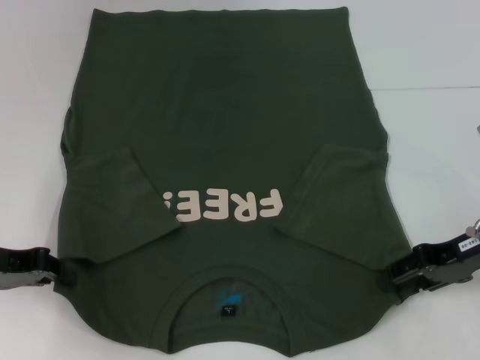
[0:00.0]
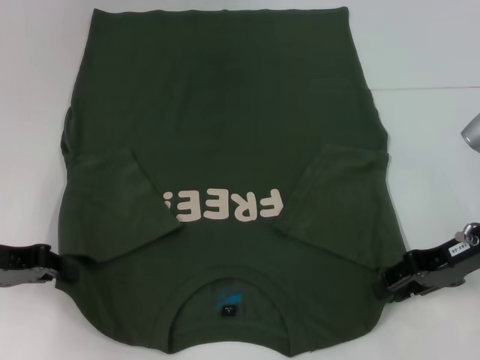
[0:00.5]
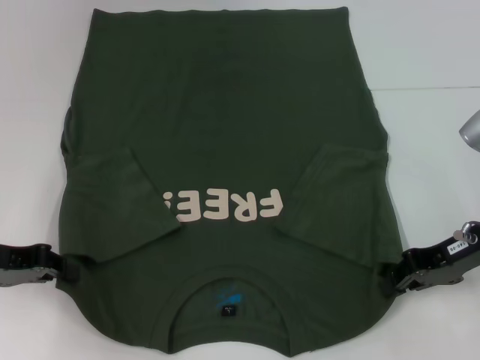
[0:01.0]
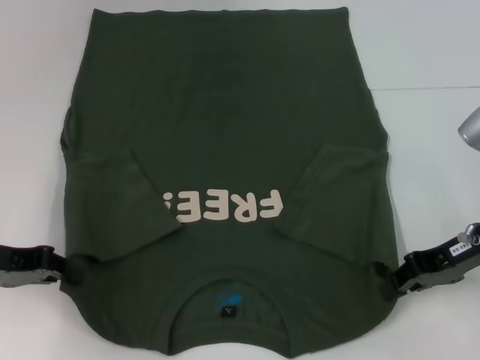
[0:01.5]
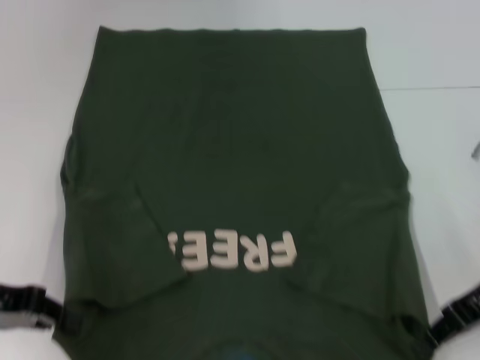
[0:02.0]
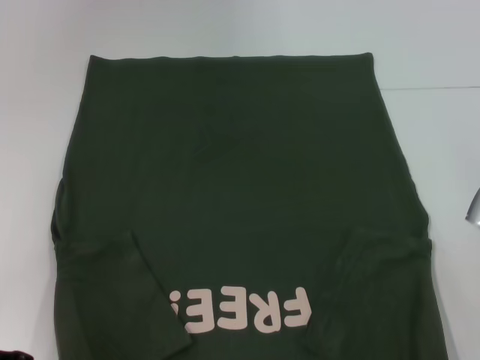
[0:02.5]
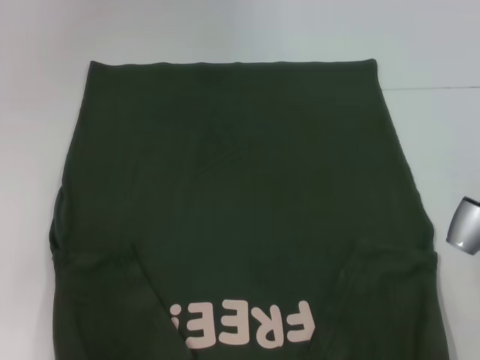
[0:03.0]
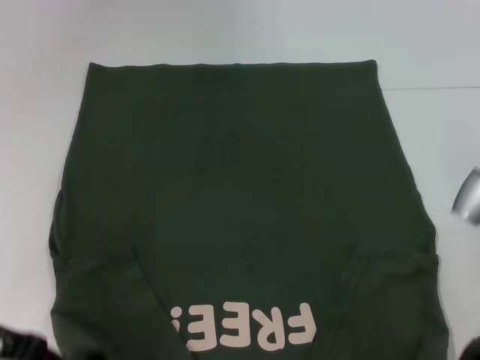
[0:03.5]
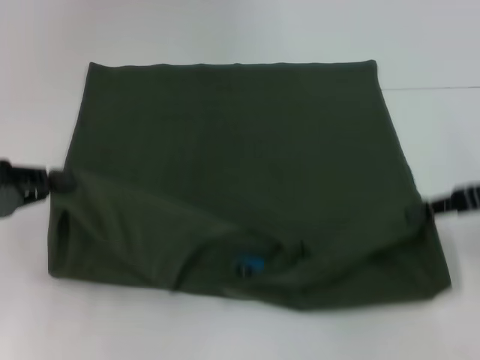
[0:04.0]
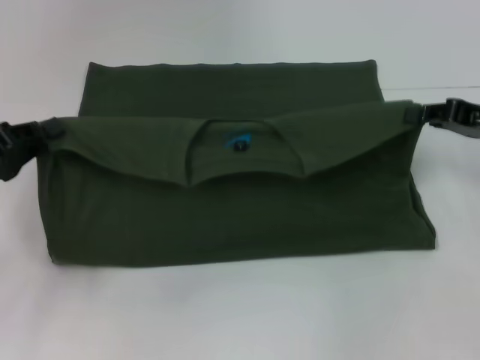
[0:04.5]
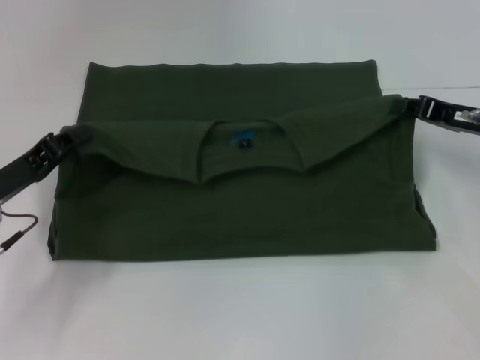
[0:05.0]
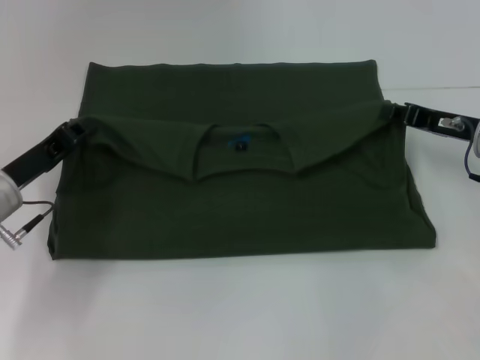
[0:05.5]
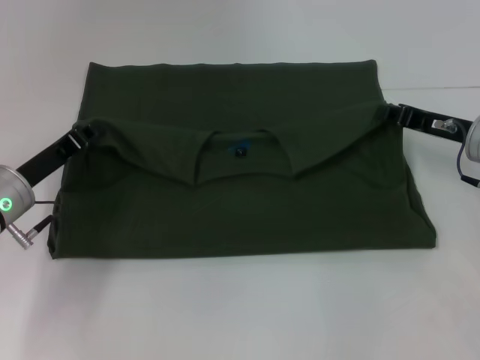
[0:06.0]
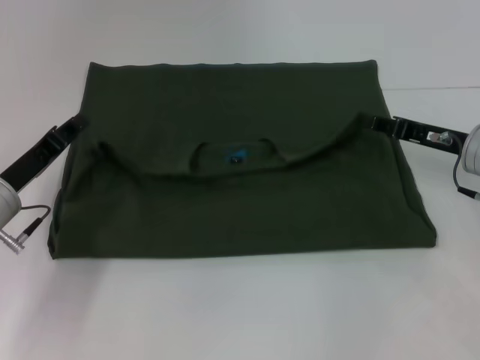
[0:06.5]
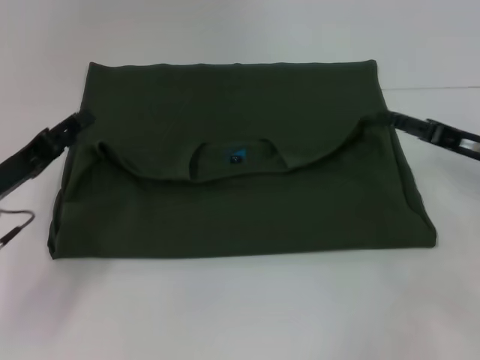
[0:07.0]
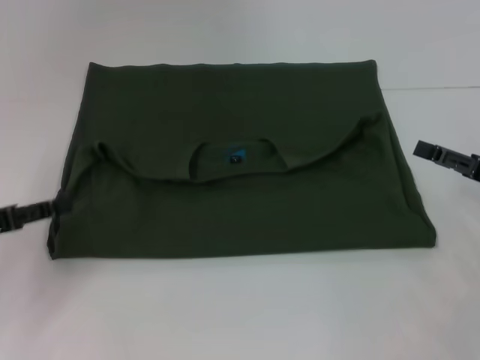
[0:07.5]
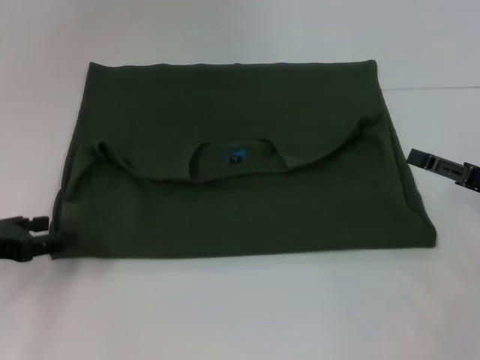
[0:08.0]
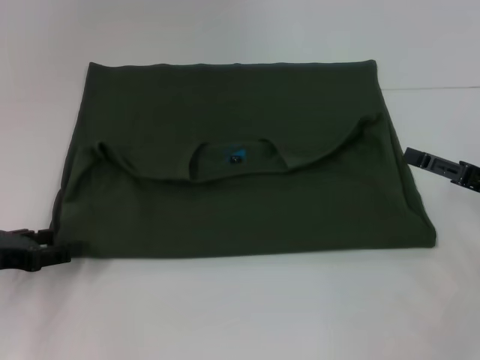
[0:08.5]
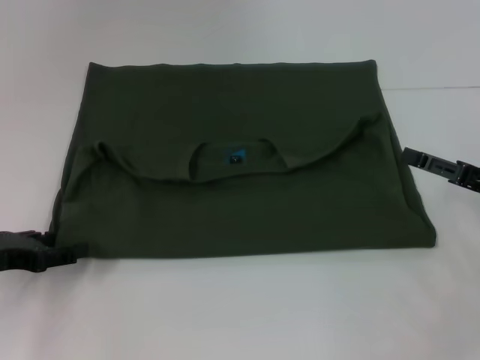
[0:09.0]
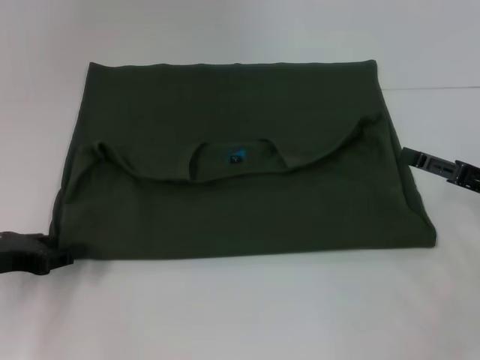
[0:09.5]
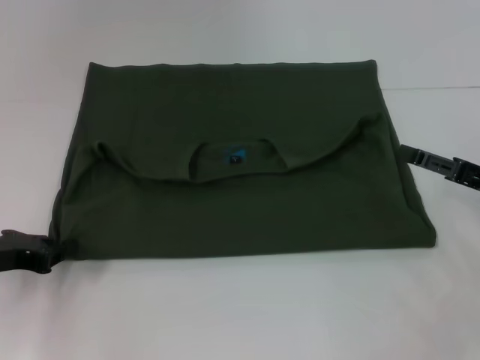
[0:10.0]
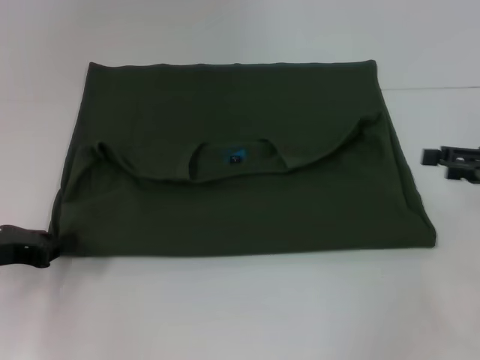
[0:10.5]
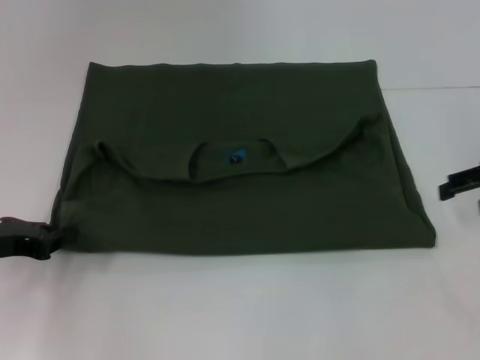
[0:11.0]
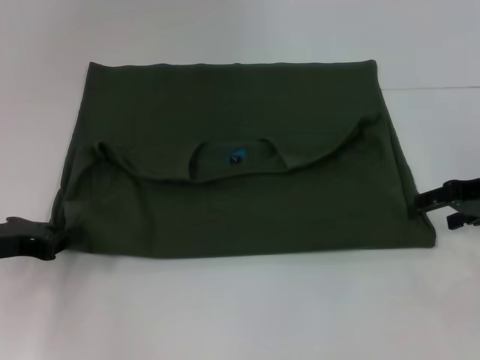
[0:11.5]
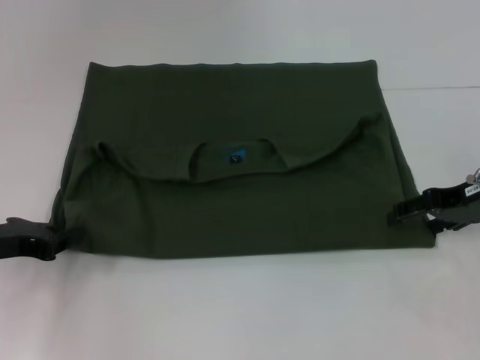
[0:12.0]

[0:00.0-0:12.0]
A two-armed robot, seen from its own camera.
Step, 0:00.5 to 0:06.5: Fold the clothes with your left hand.
Step, 0:00.5 to 0:06.5: Fold the clothes with your right hand.
0:00.0 to 0:02.0: The right gripper closes up.
0:02.0 to 0:04.0: The right gripper moves about 5 cm.
0:04.0 to 0:06.0: The right gripper shifts roughly 10 cm downward and forward. The left gripper travels downward, to the right and forward by roughly 15 cm.
0:06.0 to 0:08.0: The left gripper moves to the left and backward, roughly 10 cm, and opens up; the right gripper travels backward and to the right by about 10 cm, and opens its fingers.
0:08.0 to 0:10.0: The left gripper closes.
0:10.0 to 0:12.0: The right gripper heads forward, covering roughly 5 cm.

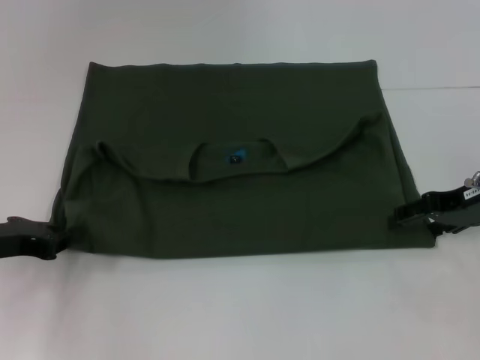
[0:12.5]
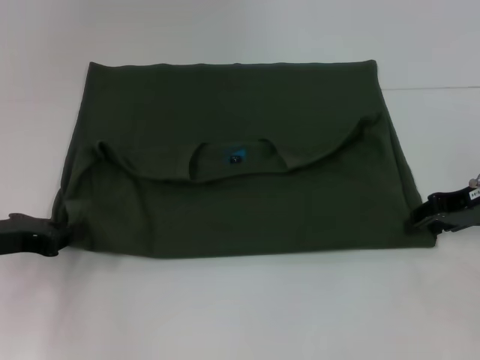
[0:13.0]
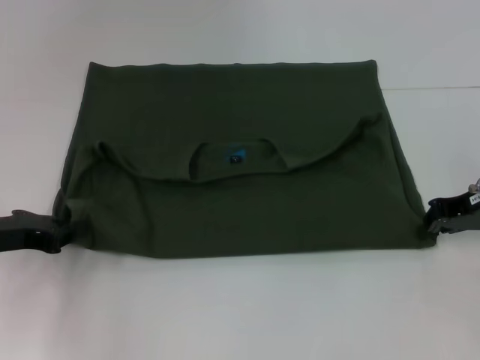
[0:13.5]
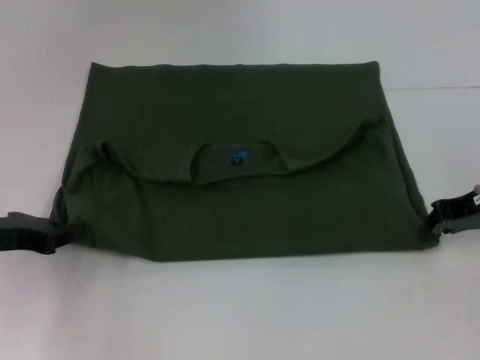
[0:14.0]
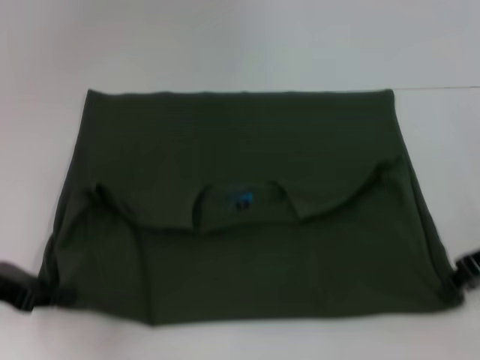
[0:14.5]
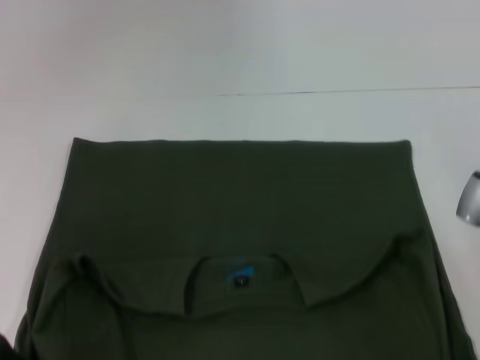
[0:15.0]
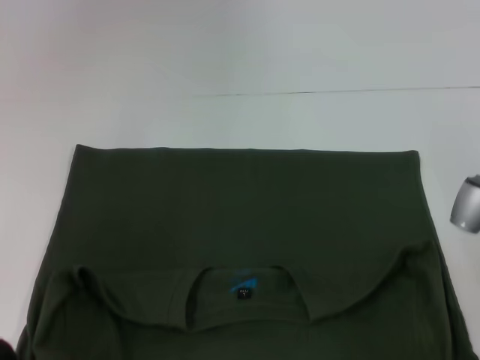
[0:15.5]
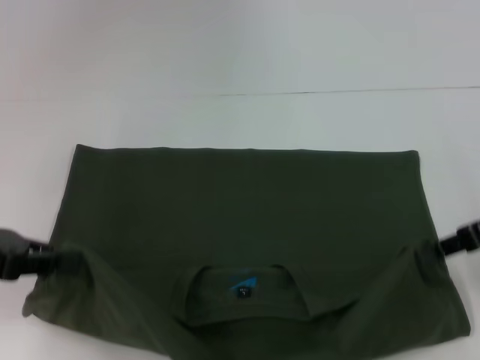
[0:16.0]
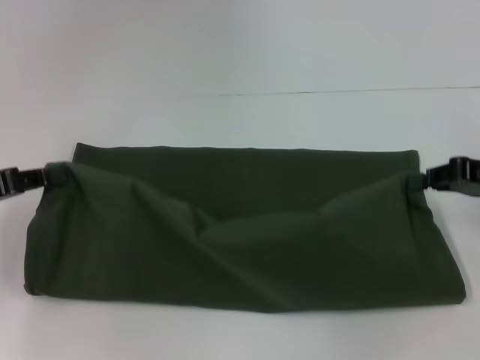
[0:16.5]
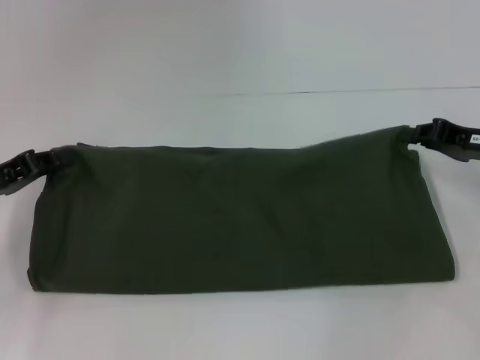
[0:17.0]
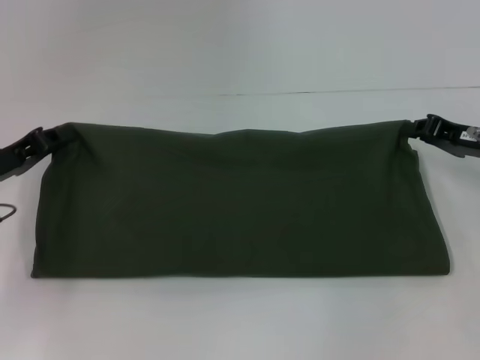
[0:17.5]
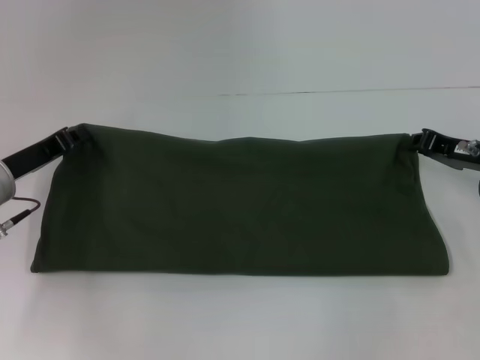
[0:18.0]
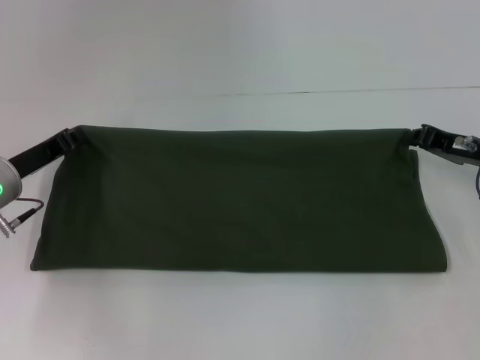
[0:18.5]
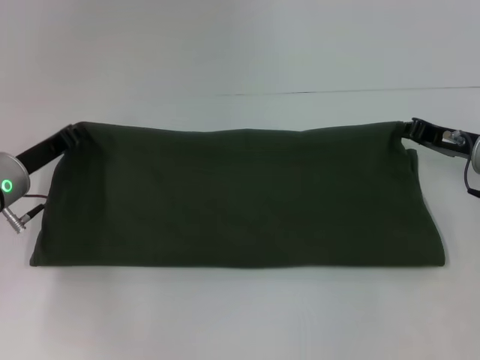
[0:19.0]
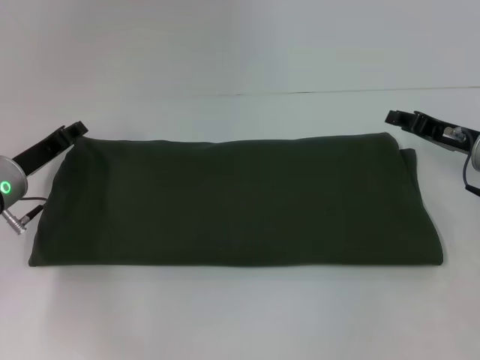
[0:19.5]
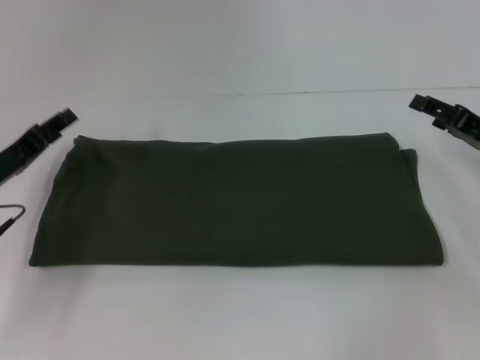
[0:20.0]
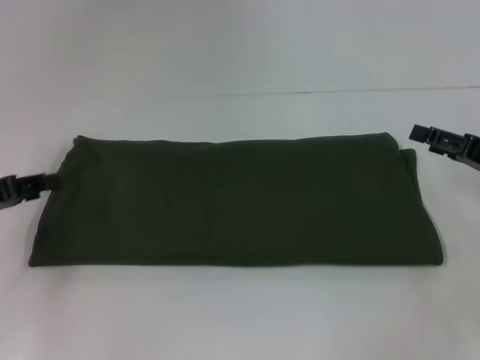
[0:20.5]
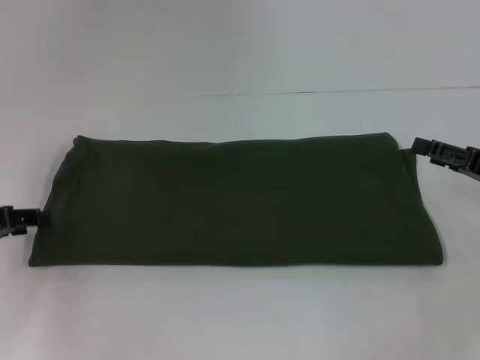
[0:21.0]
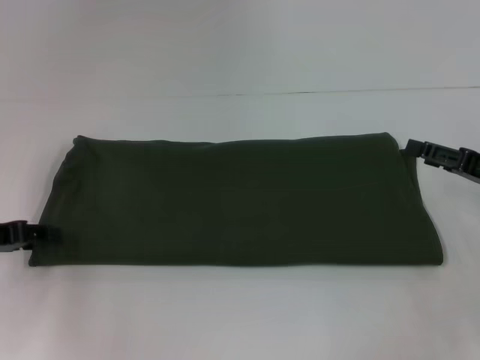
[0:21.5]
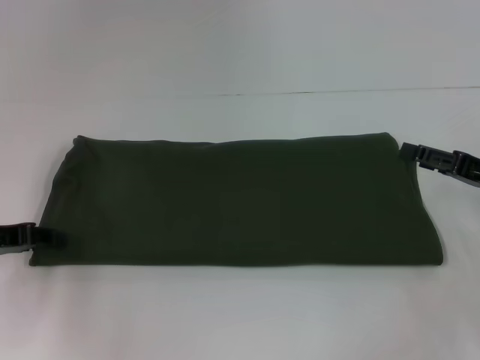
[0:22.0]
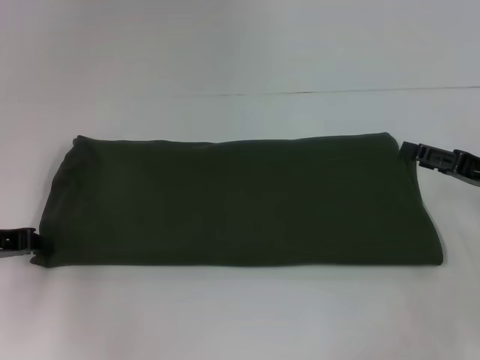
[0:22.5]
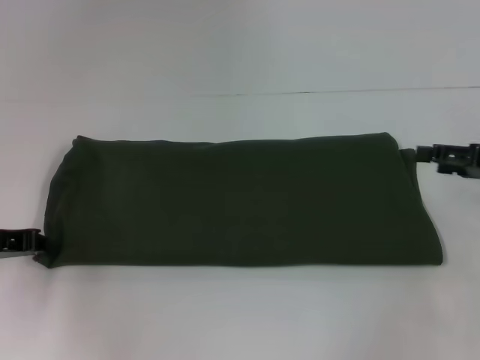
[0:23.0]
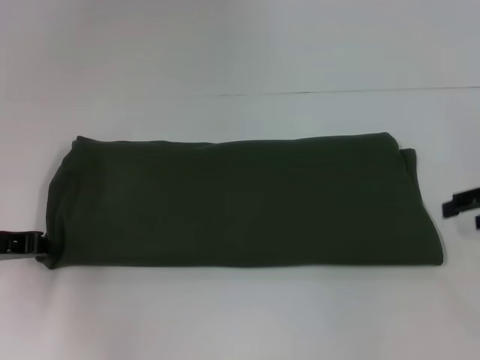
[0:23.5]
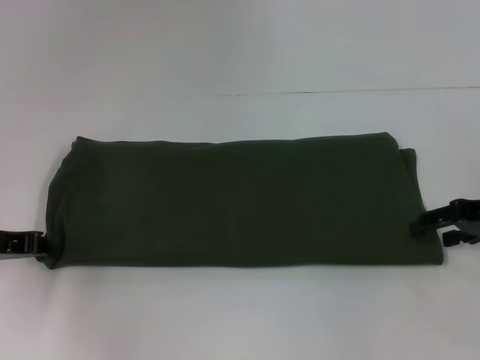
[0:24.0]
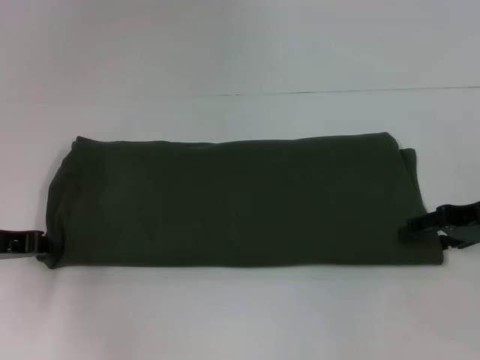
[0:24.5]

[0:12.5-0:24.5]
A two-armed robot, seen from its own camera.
Step, 0:12.5 to 0:15.0: Pull the clothes with your left hand.
Step, 0:12.5 to 0:15.0: Pull the clothes with your right hand.
Step, 0:15.5 to 0:19.5: Fold the clothes with your right hand.
0:12.5 to 0:14.5: The right gripper closes up.
0:16.5 to 0:18.5: The right gripper is displaced downward by about 5 cm; the left gripper is displaced to the right, forward and downward by some 10 cm.
0:18.5 to 0:20.5: The right gripper heads backward, covering approximately 5 cm, and opens up; the left gripper shifts about 10 cm to the left and backward, and opens its fingers.
0:20.5 to 0:22.5: The left gripper closes its fingers.

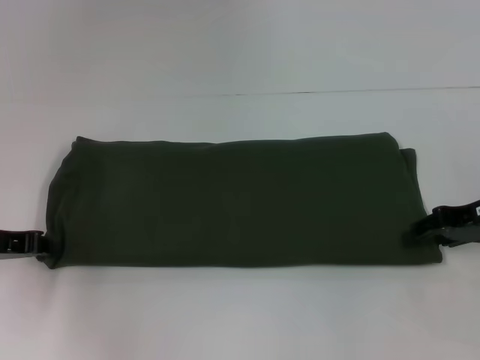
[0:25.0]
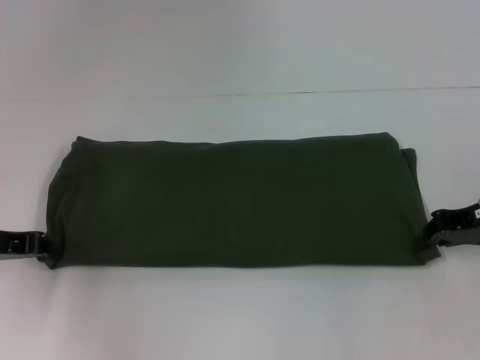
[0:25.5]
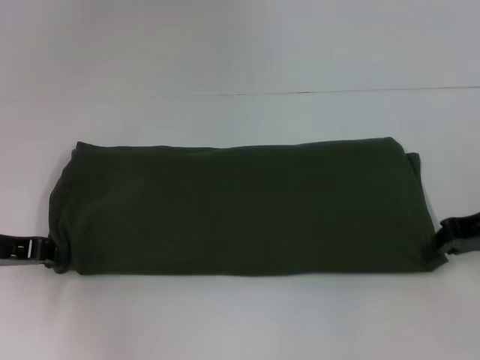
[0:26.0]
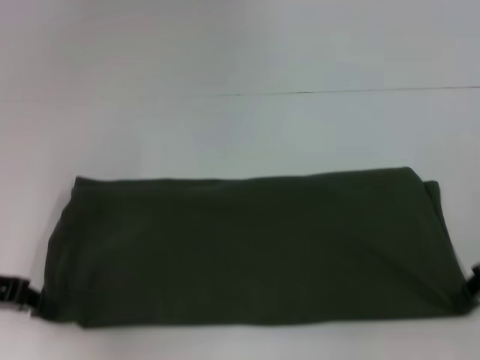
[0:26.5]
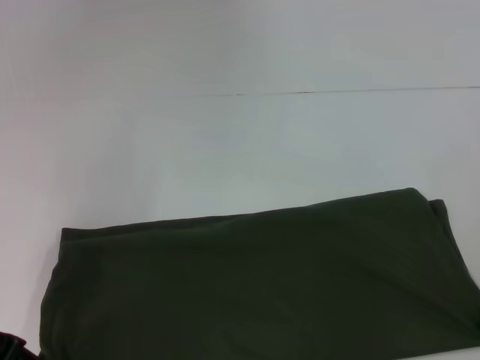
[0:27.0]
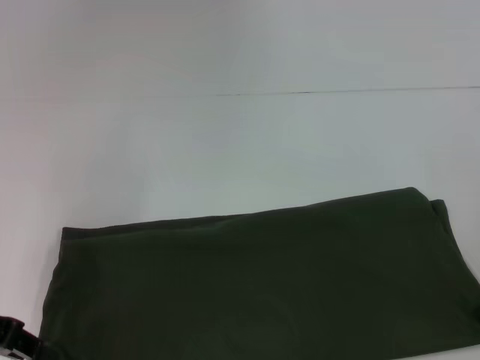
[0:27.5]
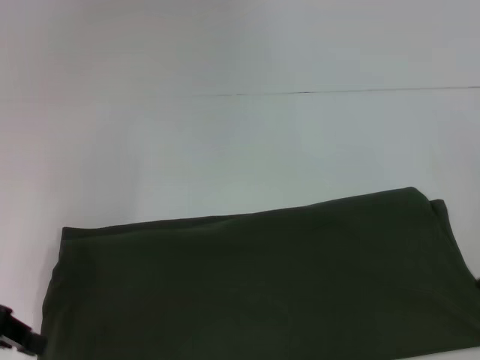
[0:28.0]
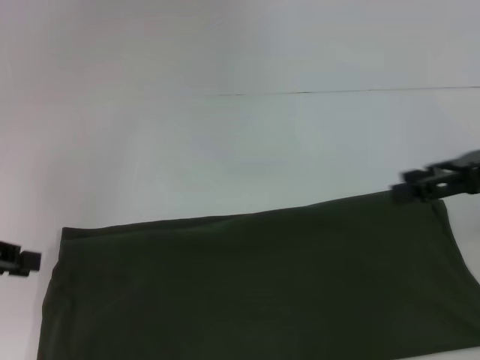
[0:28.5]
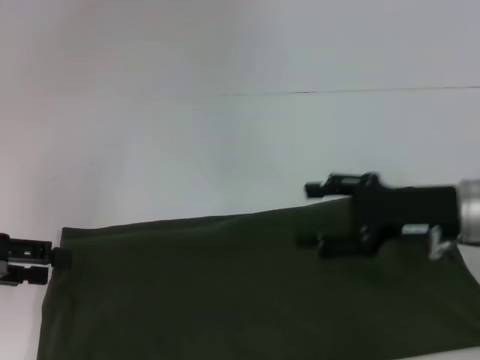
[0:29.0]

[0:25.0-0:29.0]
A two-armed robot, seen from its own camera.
0:25.0 to 0:27.0: The right gripper closes up; the left gripper travels backward by about 5 cm.
0:27.0 to 0:29.0: The left gripper opens up. Meanwhile the right gripper is displaced to the left by about 10 cm, and opens its fingers.
